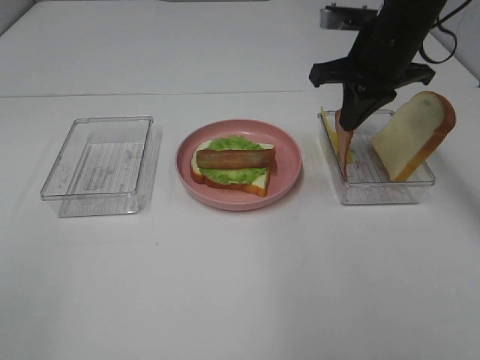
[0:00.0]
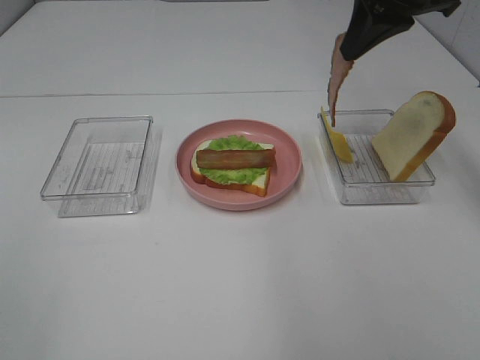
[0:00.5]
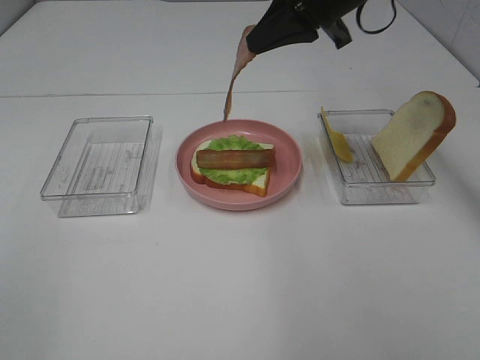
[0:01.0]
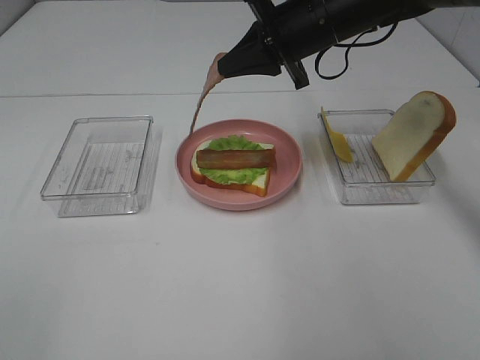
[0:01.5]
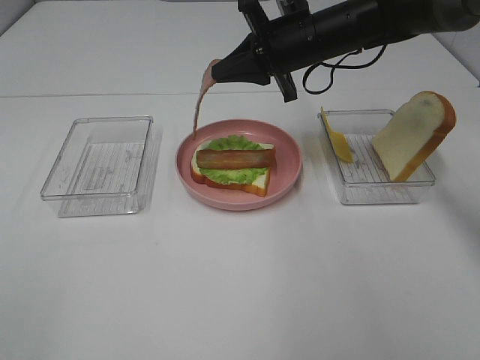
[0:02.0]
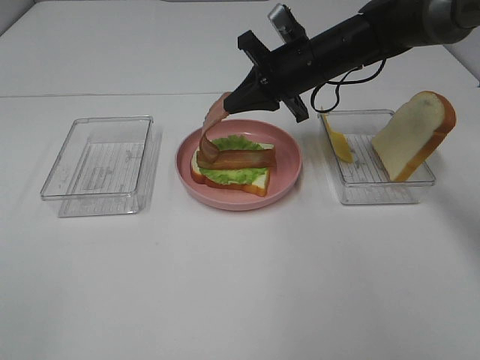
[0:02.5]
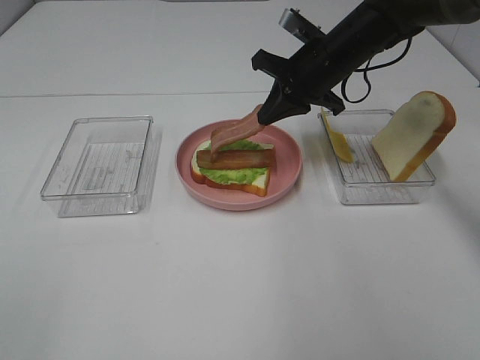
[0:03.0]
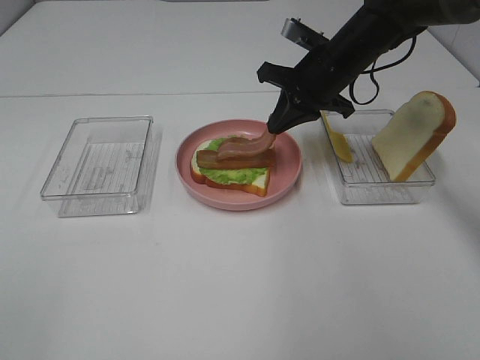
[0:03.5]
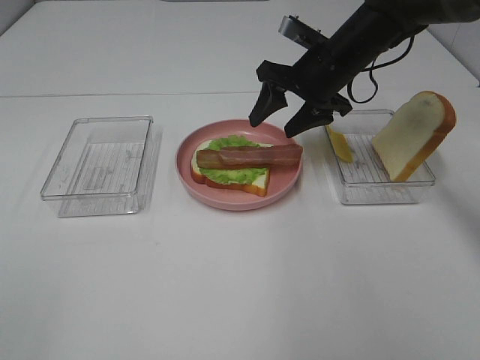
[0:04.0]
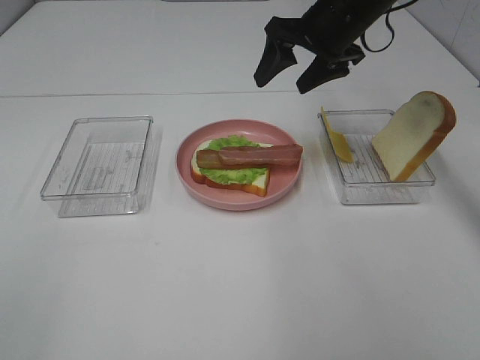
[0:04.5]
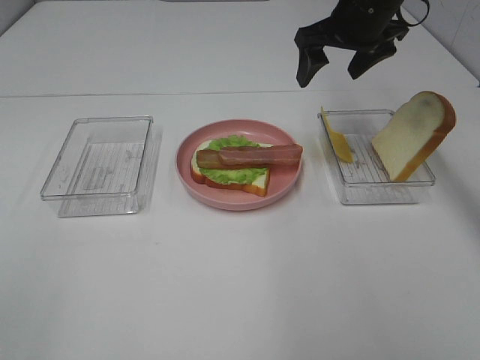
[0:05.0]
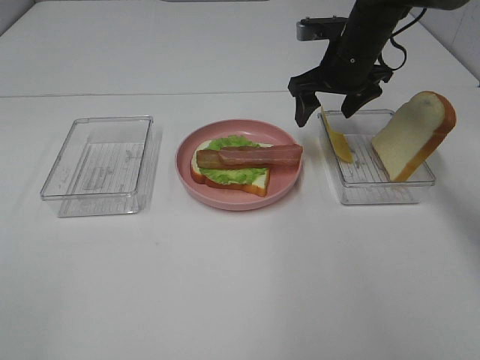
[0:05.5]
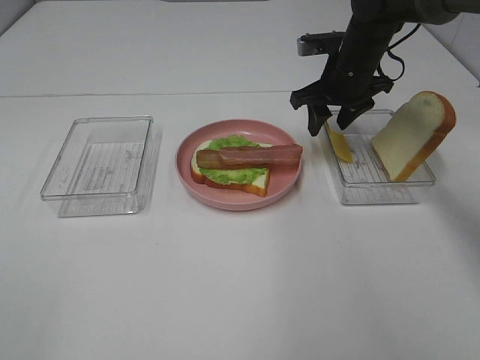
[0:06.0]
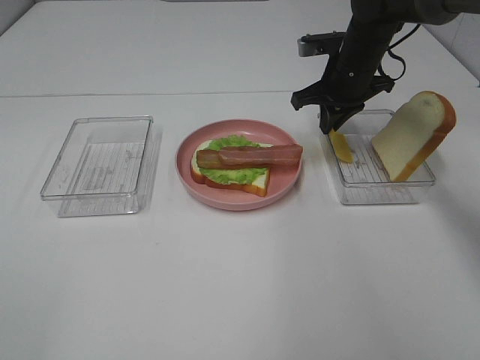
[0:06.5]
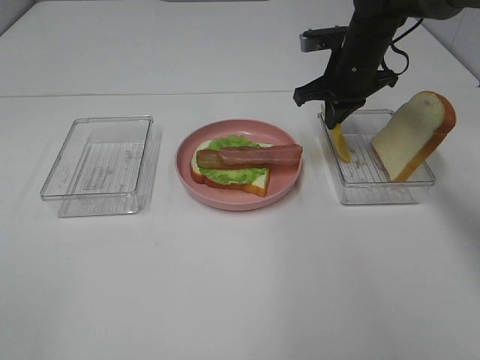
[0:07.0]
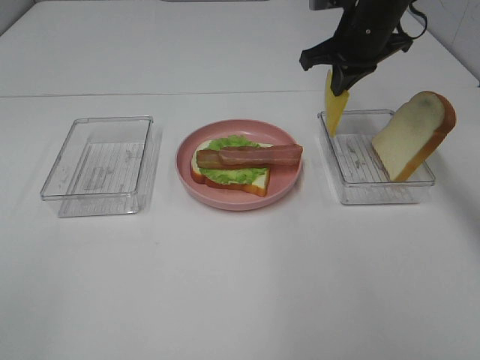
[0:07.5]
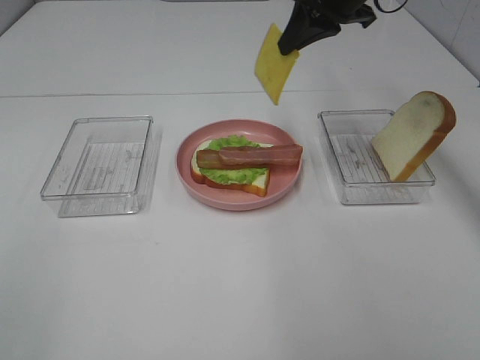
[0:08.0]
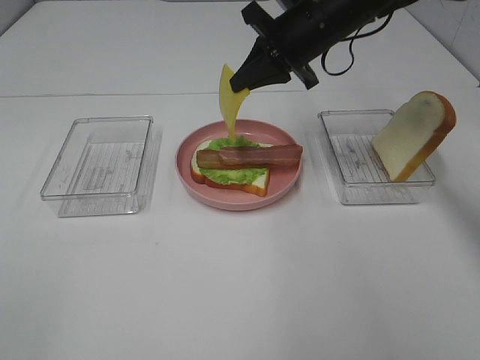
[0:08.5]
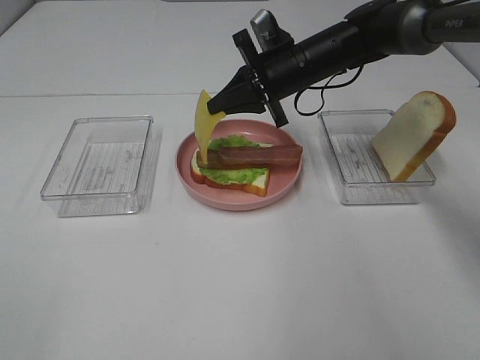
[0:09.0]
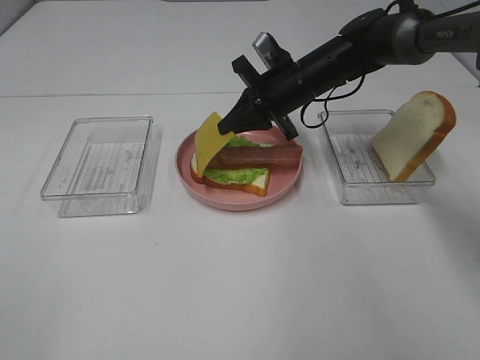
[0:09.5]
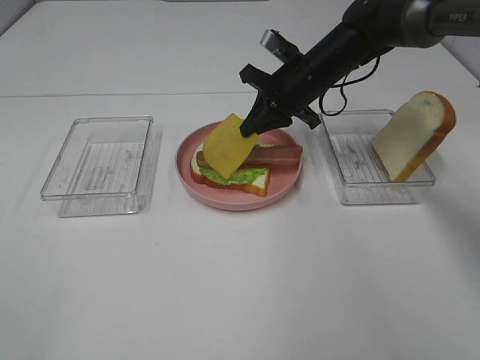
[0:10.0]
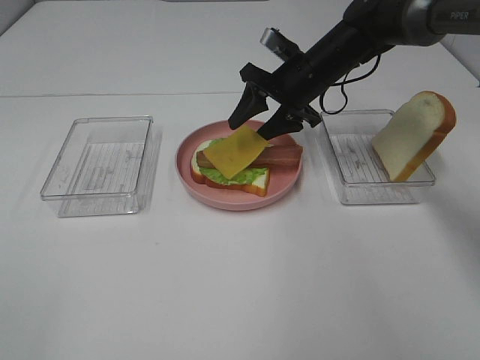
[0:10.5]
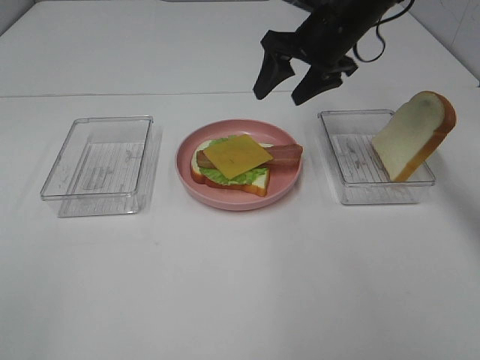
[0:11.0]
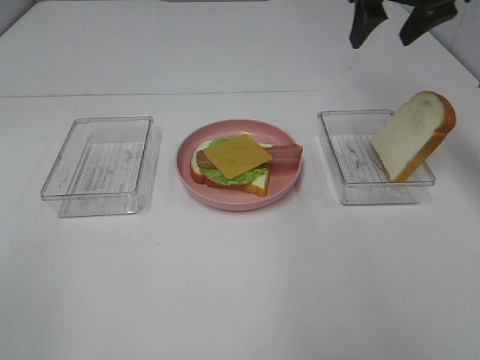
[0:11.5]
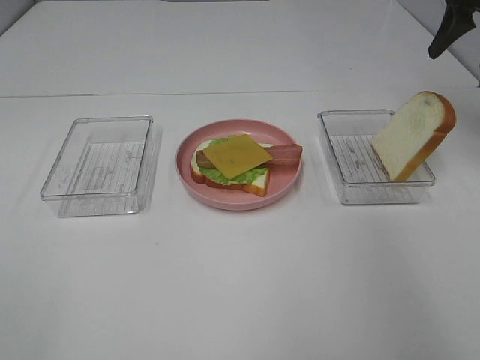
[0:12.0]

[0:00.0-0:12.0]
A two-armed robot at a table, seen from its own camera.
Task of the whole recording: Make sandwiches.
Step, 0:00.0 to 0:03.5: Right hand:place bacon on bacon.
Step, 0:04.0 to 0:06.5: Right hand:grab the cheese slice.
Step, 0:07.0 to 0:10.5: Right hand:place the cheese slice on top of the bacon.
0:00.0 to 0:02.0: The right gripper travels to the left by roughly 5 cm, and reaches roughly 10 cm upward, then returns.
0:02.0 to 0:04.0: The right gripper opens its fingers.
0:04.0 to 0:06.0: The right gripper reaches about 5 cm upward, then returns.
0:06.0 to 0:08.0: The right gripper moves upward, approximately 15 cm, and closes.
0:08.0 to 0:10.0: The right gripper travels downward by about 15 cm.
0:10.0 to 0:12.0: The right gripper travels to the right and upward by approximately 25 cm, and opens up.

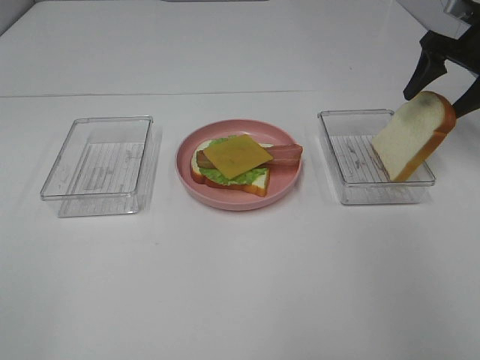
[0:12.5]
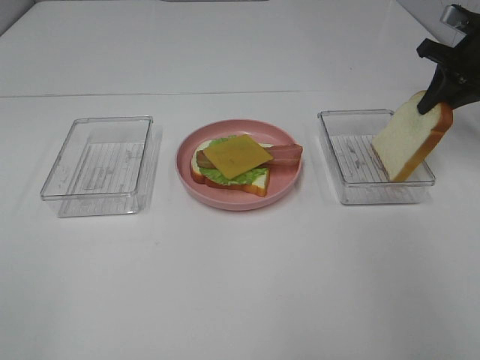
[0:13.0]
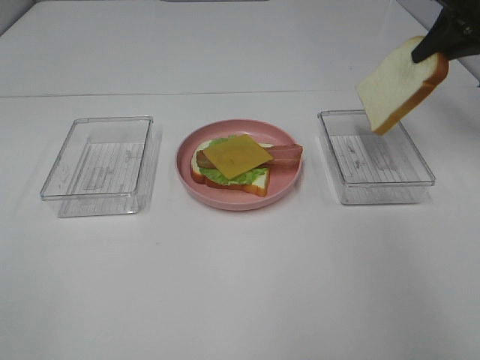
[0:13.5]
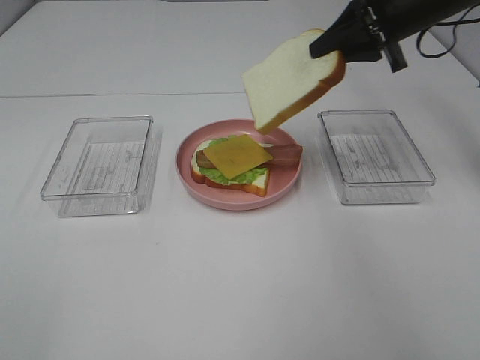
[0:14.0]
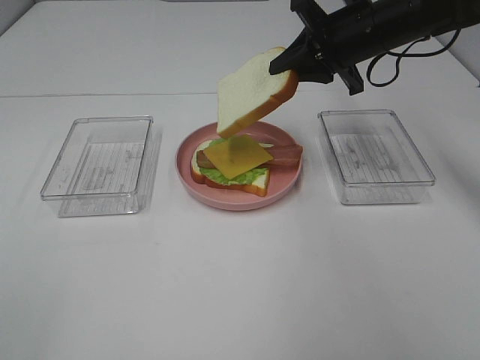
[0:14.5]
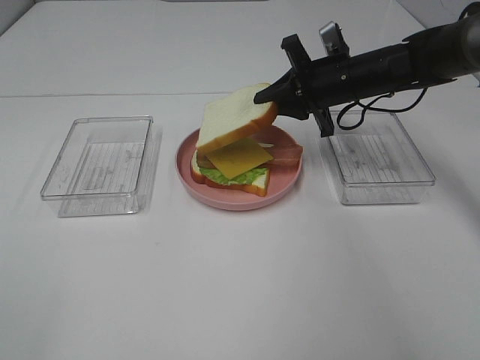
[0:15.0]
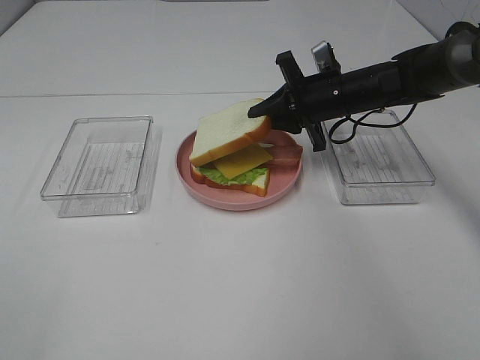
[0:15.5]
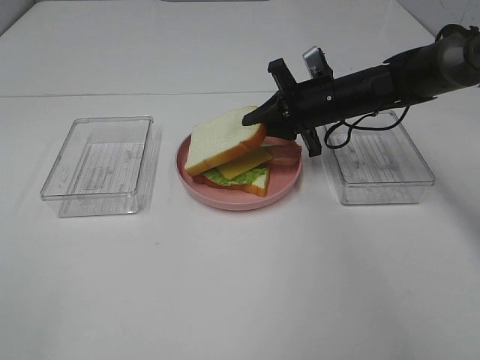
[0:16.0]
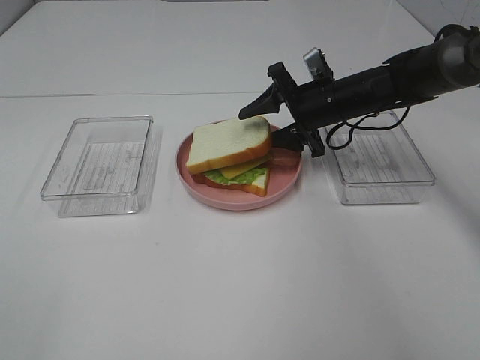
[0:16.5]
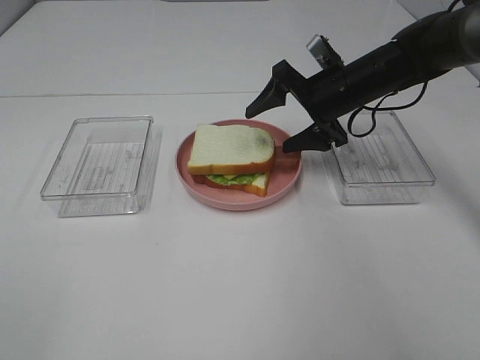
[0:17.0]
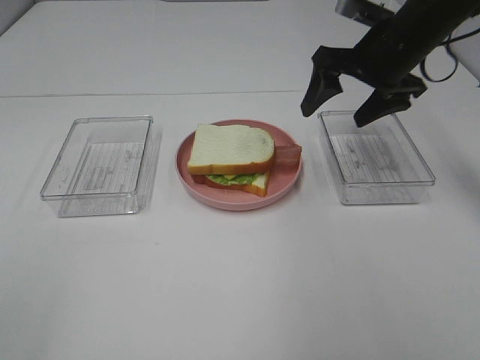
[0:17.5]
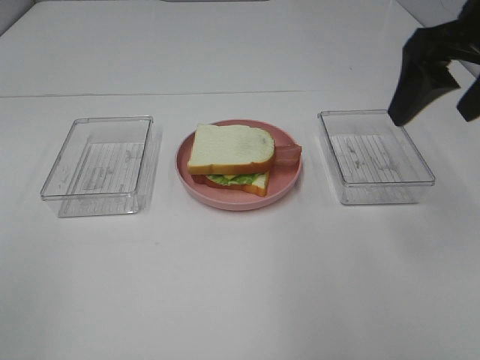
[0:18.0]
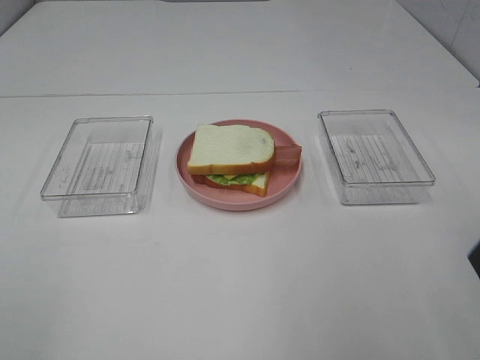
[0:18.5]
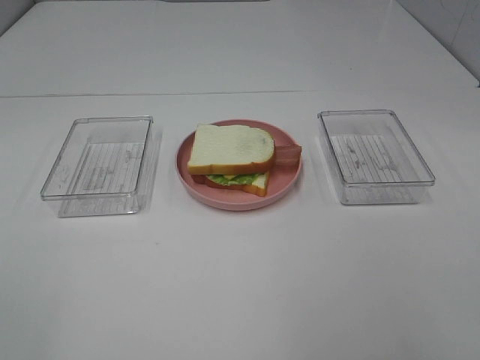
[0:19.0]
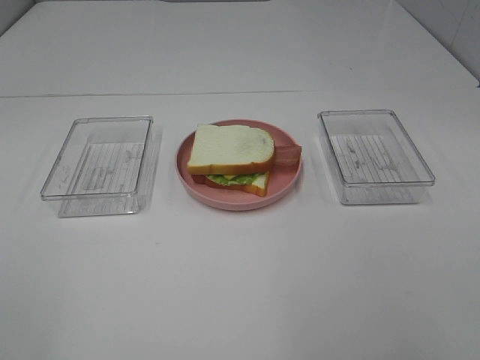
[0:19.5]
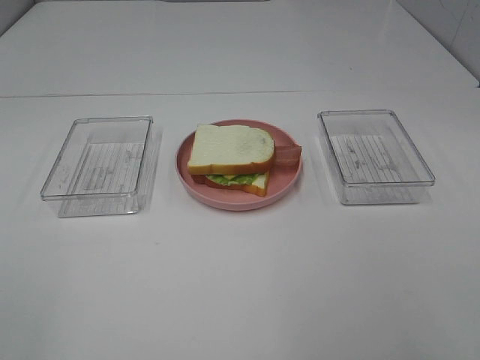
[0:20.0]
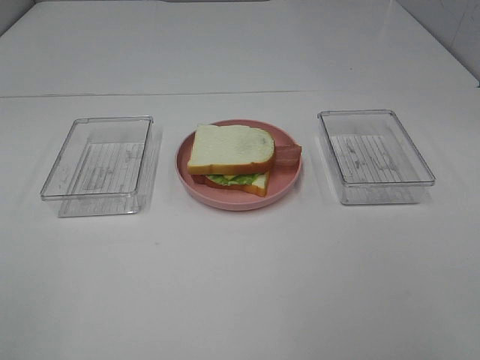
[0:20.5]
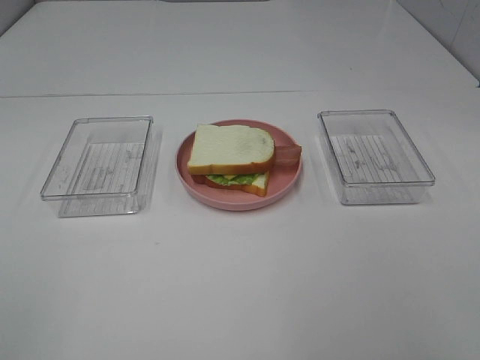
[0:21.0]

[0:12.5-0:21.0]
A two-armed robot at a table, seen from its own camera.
Task of the whole recording: Make sandwiches.
Step, 0:13.5 to 0:17.0: Right hand:place the bread slice on the cheese slice.
0:12.5 to 0:14.5: The right gripper goes about 20 cm to the left, and closes its fingers.
0:14.5 to 0:16.5: The right gripper goes about 10 cm downward, and opens.
0:16.5 to 0:19.0: The right gripper moves backward and upward, approximately 50 cm.

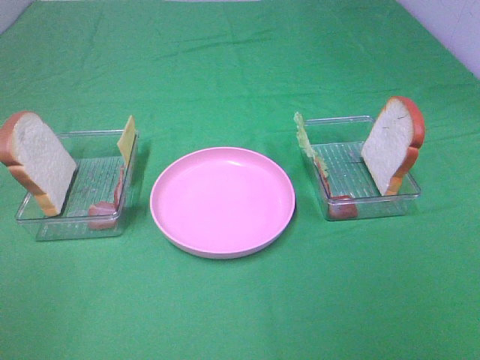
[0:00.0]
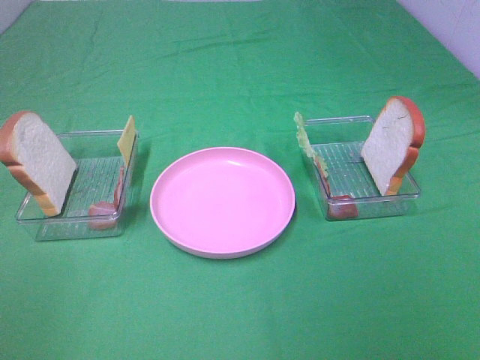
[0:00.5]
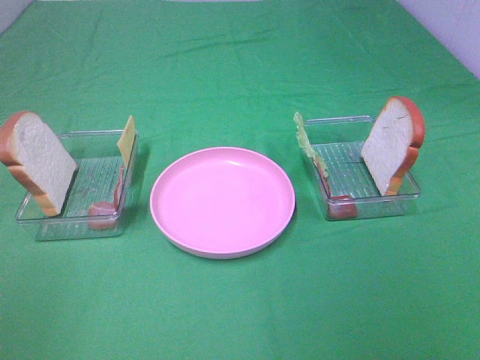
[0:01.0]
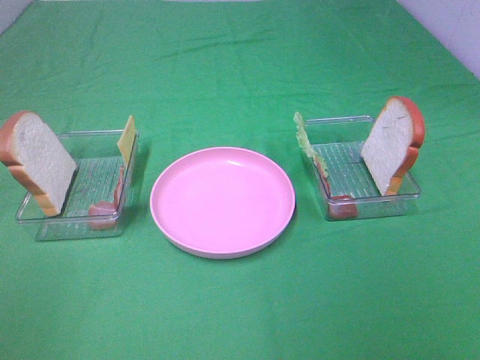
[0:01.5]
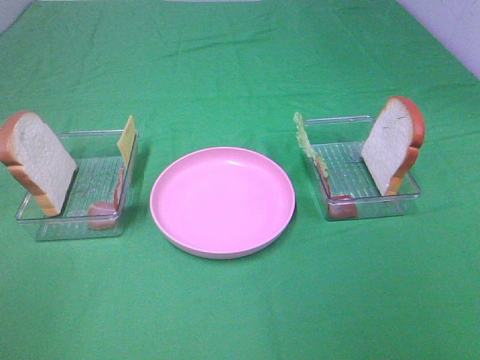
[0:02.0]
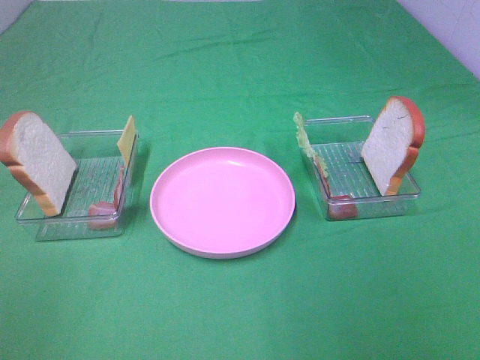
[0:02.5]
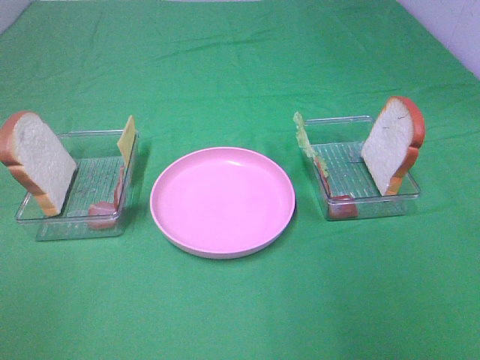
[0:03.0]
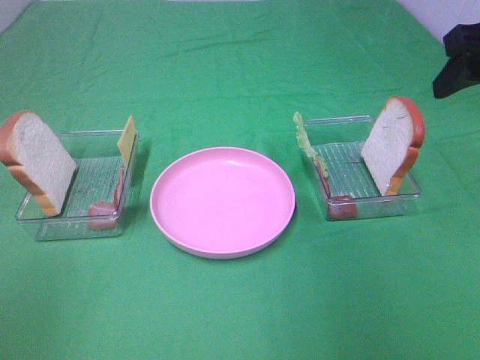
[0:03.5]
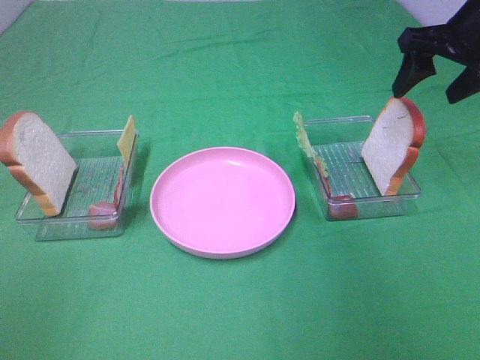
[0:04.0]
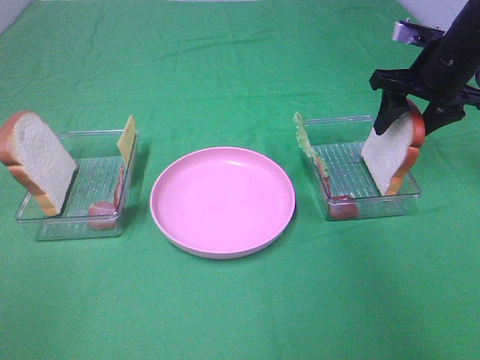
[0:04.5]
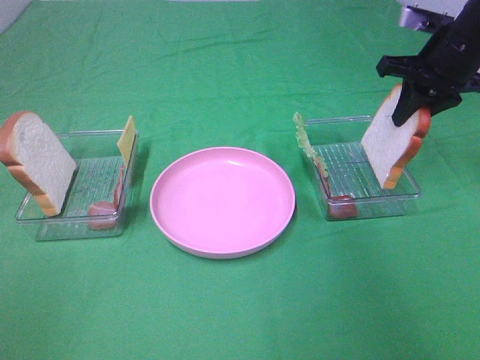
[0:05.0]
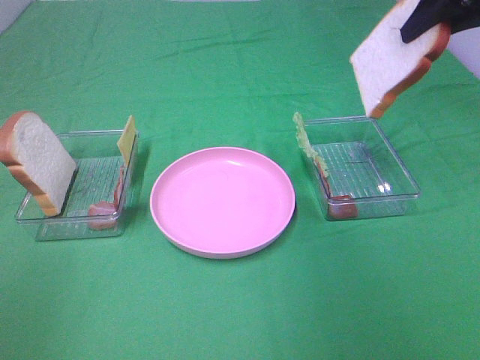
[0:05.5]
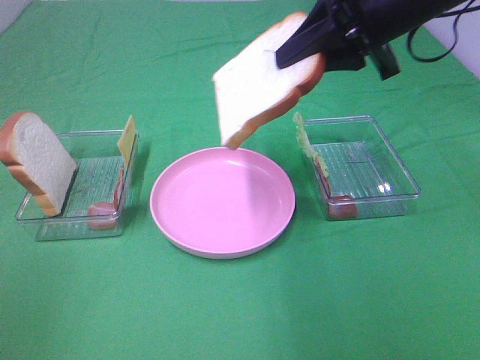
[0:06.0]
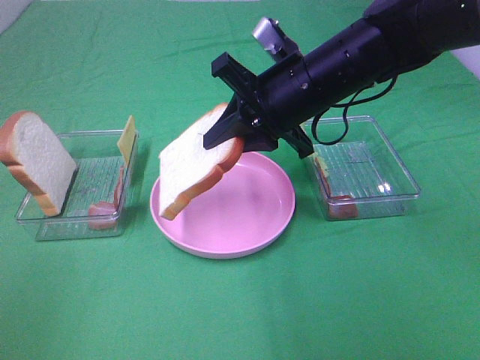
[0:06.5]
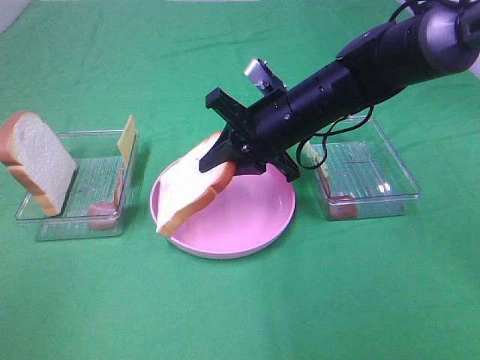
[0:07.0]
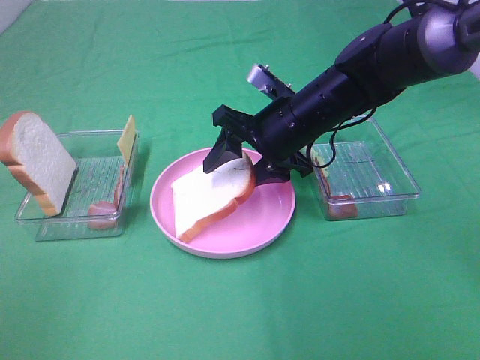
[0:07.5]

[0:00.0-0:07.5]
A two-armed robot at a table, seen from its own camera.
Task of the whole recording: Make sandwiches.
Step, 0:00.0 to 0:04.5: Right hand:grab the bread slice.
0:00.0 to 0:02.0: Both grippers stay about where they are.
0:02.0 to 0:04.0: The right gripper travels forward by approximately 40 cm.
0:04.0 to 0:05.5: The right gripper travels upward by some 10 cm, and closes up.
0:05.5 to 0:07.5: The right gripper moves downward and to the left, approximately 25 cm, and opens its fingers.
